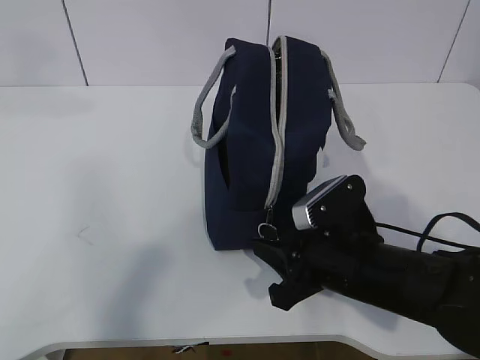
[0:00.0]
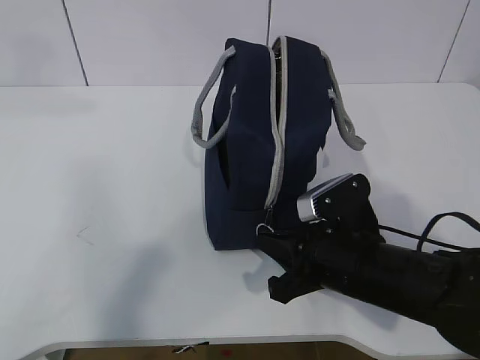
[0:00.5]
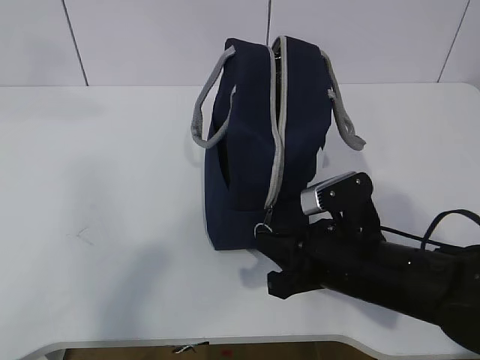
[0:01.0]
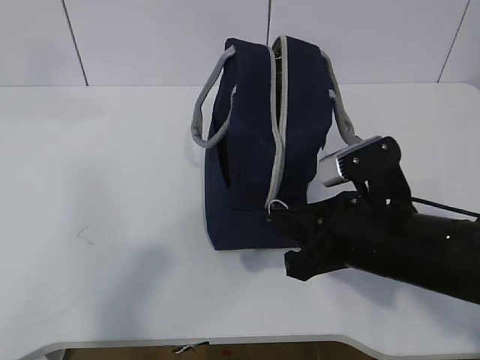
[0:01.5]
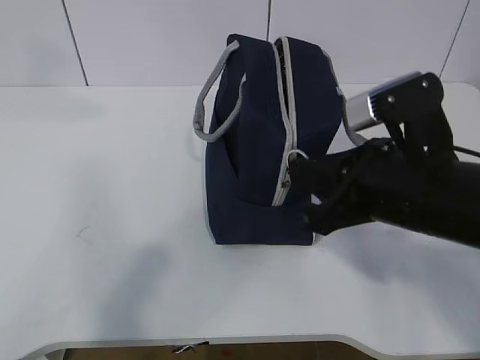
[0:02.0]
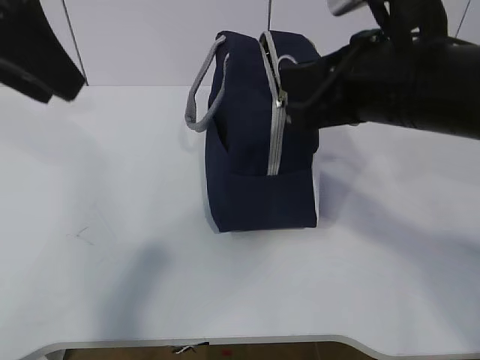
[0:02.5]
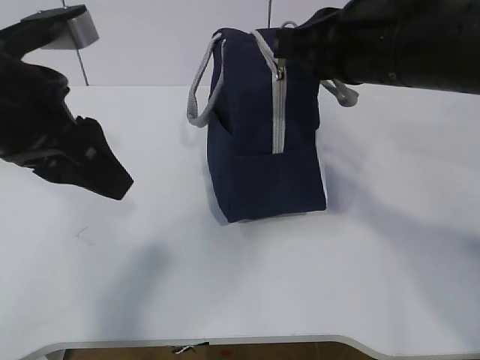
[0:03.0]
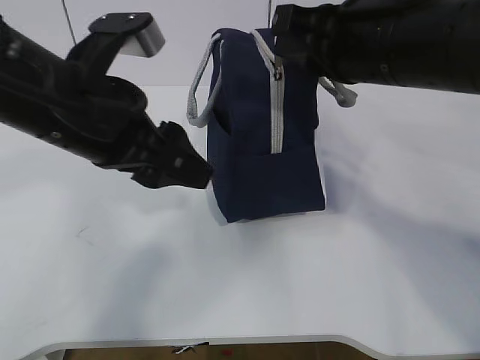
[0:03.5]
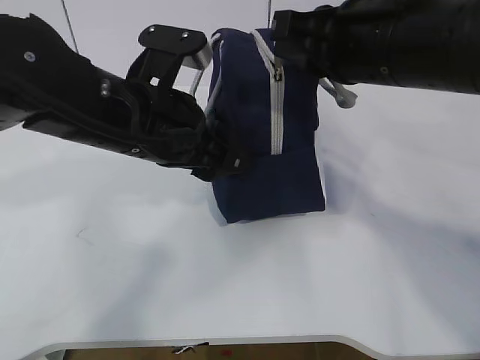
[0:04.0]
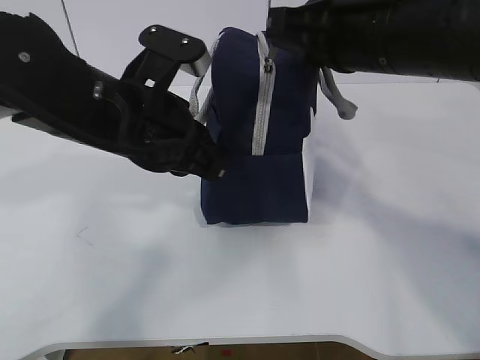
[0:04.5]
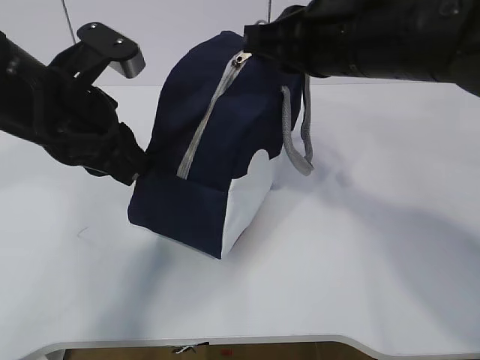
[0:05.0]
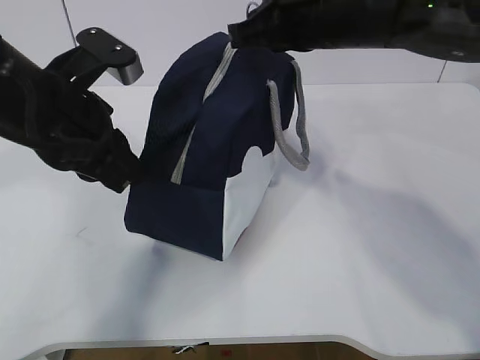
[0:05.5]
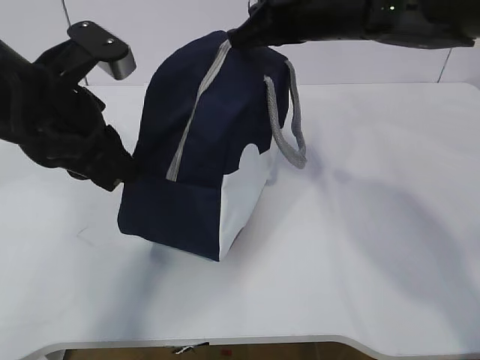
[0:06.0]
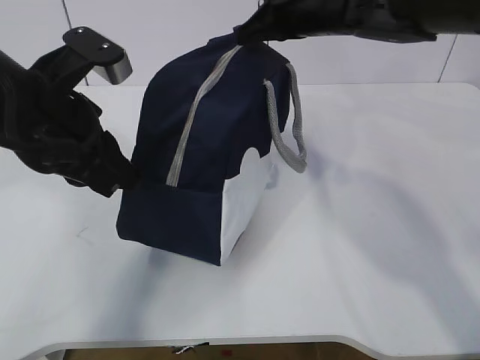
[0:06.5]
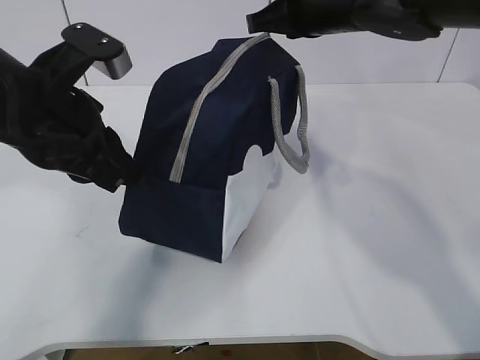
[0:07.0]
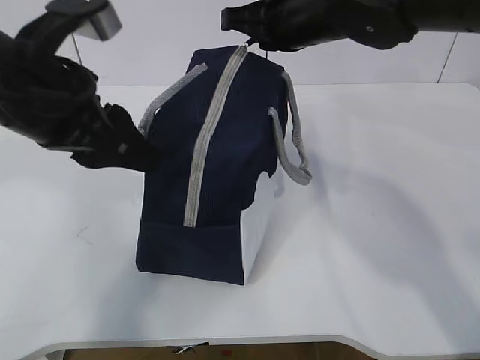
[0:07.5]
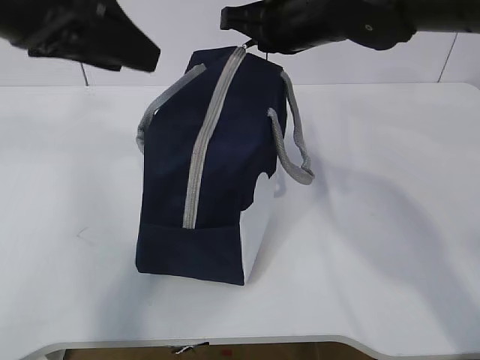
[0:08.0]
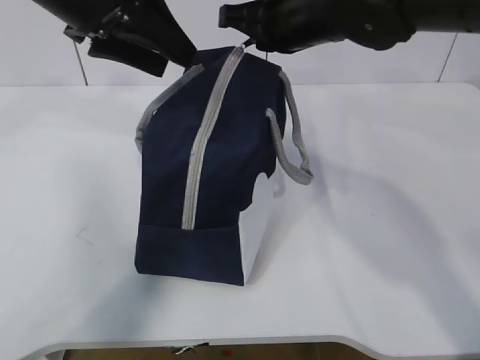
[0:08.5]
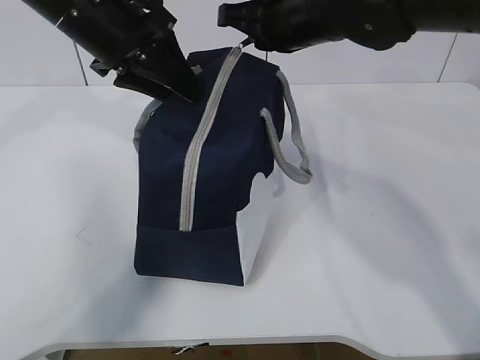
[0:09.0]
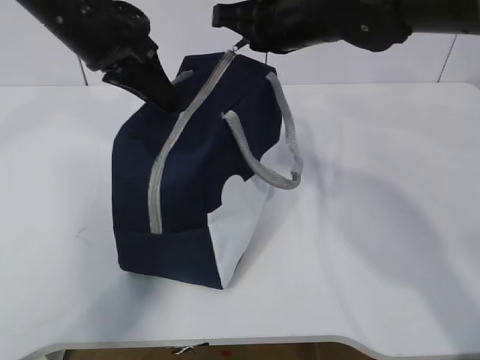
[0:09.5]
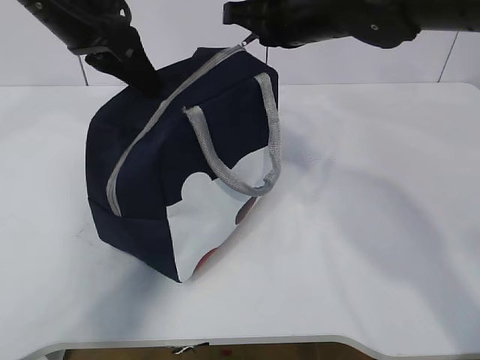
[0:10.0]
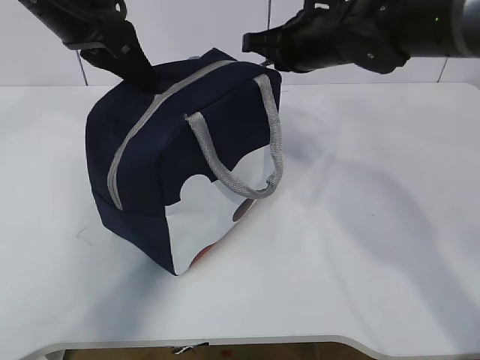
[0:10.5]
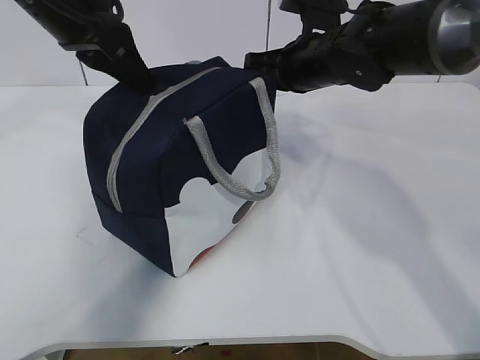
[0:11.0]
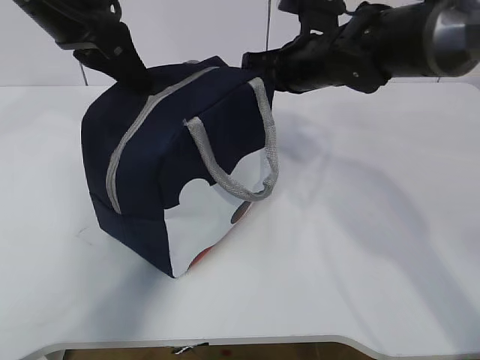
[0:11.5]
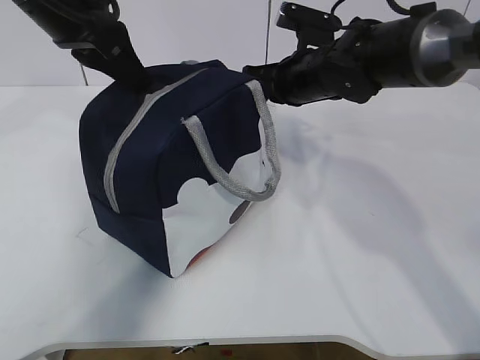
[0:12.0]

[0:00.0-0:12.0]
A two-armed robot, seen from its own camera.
Step, 0:00.0 to 0:03.0: Pull the zipper with your right hand.
0:00.0 to 0:02.0: The right gripper goes some 10 cm upward, and closes up.
0:02.0 to 0:04.0: The right gripper shifts about 10 cm upward and forward, while the left gripper moves downward and to the right, about 25 cm.
0:04.0 to 0:06.0: The left gripper heads to the left, covering about 10 cm, and closes its fingers. The right gripper goes approximately 10 cm forward.
0:06.0 to 0:08.0: The left gripper moves upward, some 10 cm, and opens its fingers.
0:08.0 to 0:10.0: The left gripper moves forward, some 10 cm, and closes up.
0:10.0 to 0:12.0: The right gripper heads downward, covering approximately 10 cm.

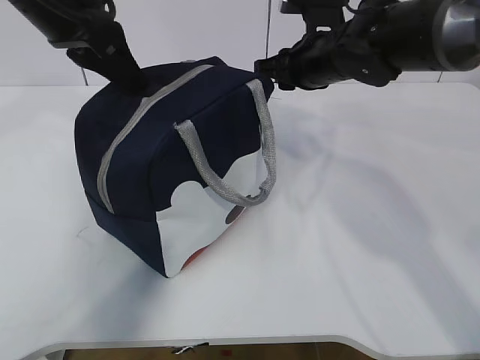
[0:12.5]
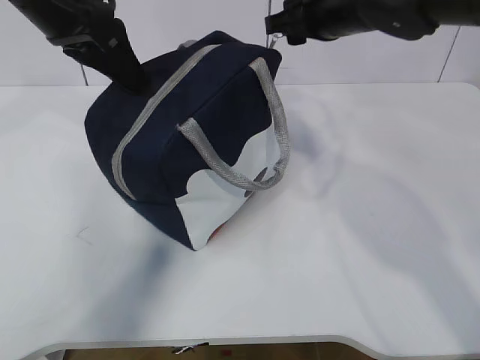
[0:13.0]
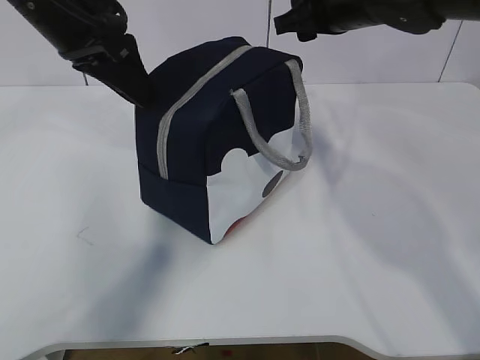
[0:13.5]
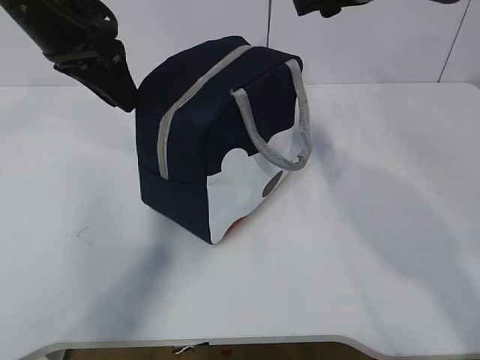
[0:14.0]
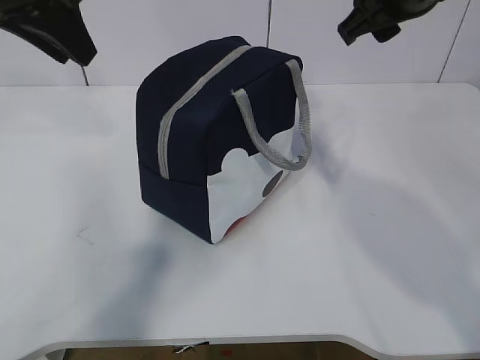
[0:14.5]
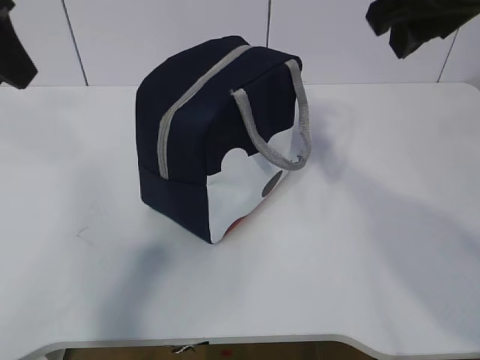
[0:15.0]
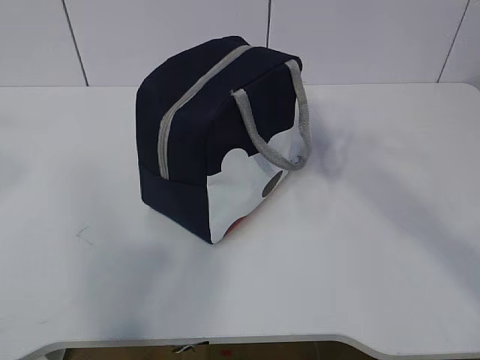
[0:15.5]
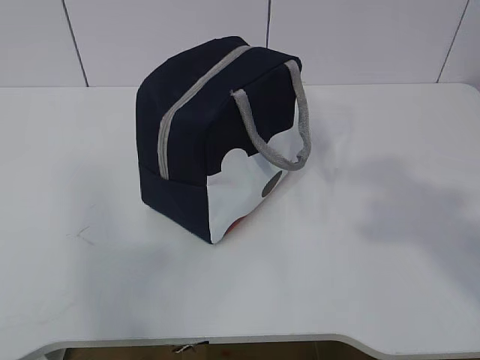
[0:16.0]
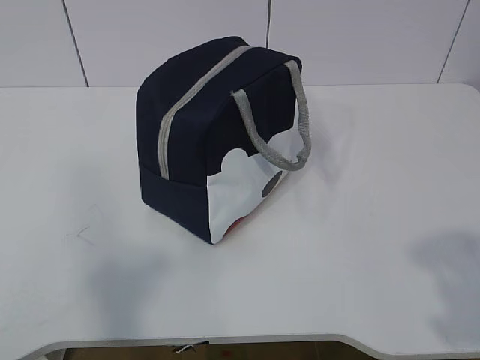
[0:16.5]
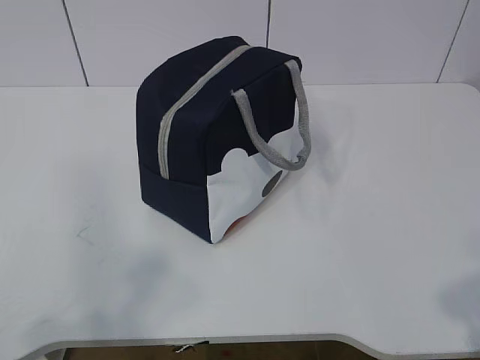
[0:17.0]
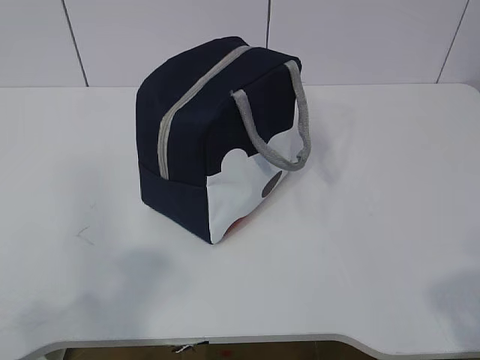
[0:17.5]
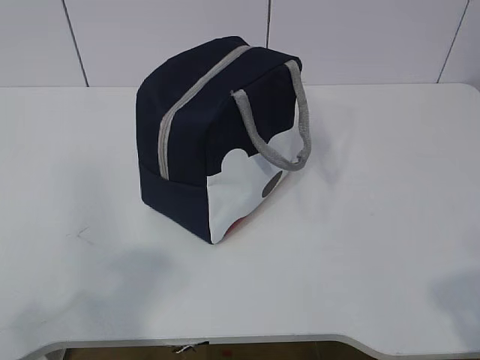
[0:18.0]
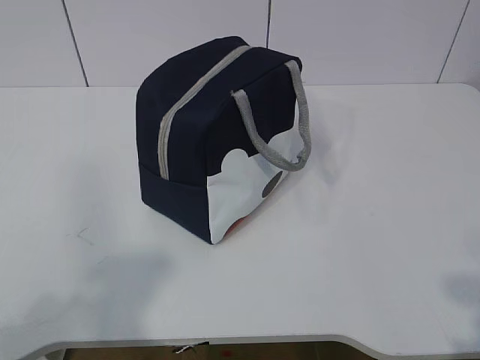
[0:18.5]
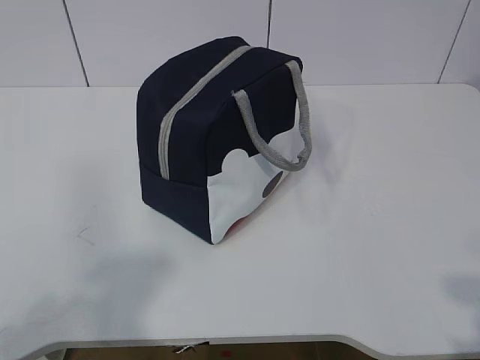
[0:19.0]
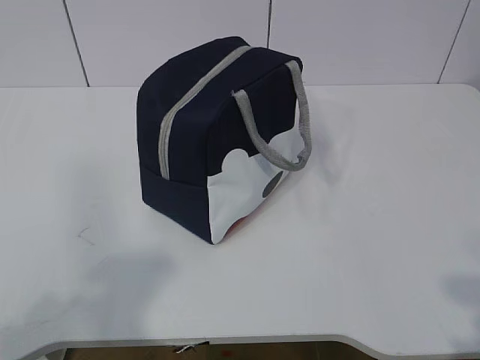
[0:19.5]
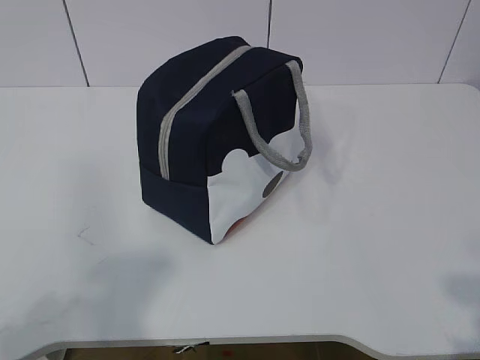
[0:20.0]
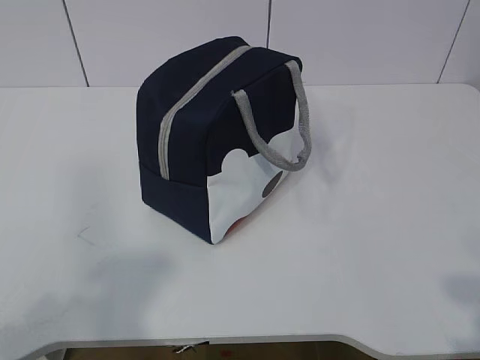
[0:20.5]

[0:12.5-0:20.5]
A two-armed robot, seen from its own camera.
0:12.5 to 0:14.5: The left gripper changes place by approximately 5 cm, and opens; the right gripper heads upward and backward, covering roughly 15 cm.
0:14.5 to 0:16.5: The grippers both shift backward by about 35 cm.
0:18.5 to 0:20.5: Neither gripper changes place.
